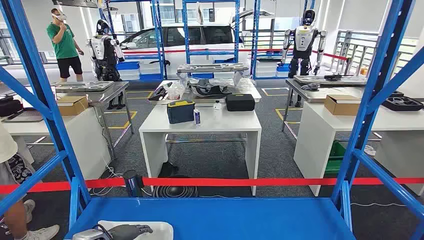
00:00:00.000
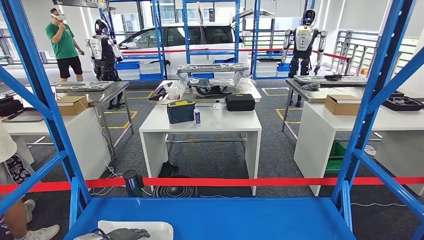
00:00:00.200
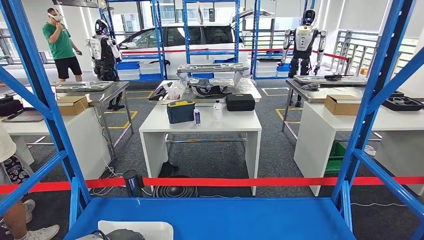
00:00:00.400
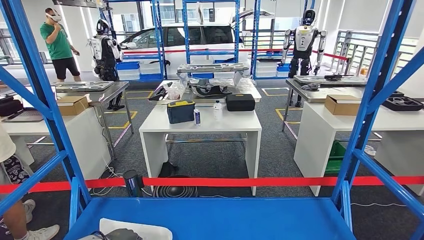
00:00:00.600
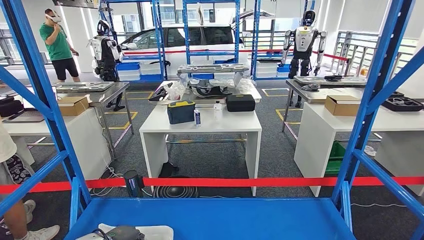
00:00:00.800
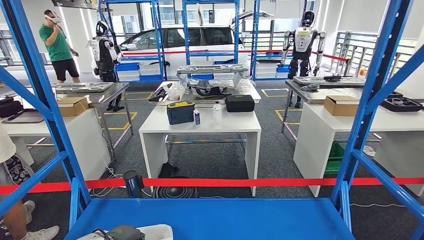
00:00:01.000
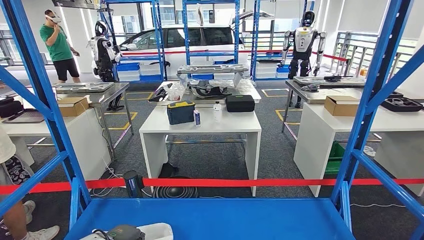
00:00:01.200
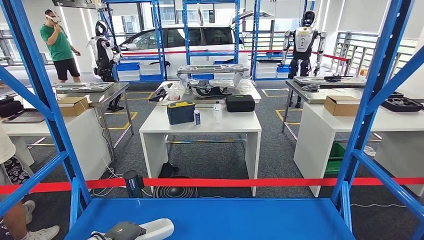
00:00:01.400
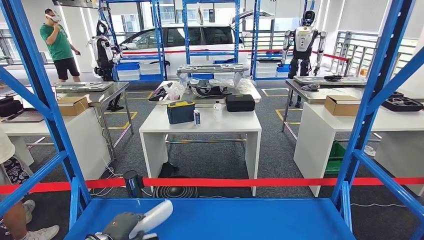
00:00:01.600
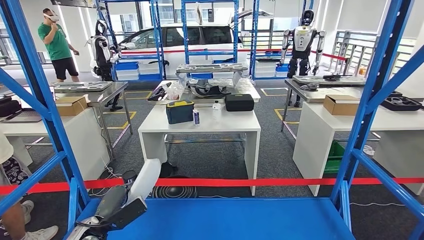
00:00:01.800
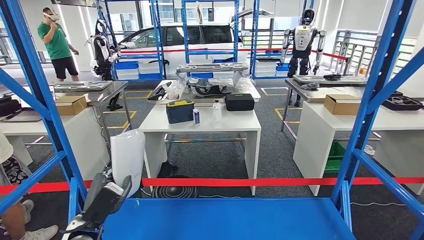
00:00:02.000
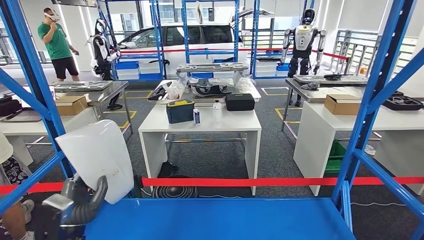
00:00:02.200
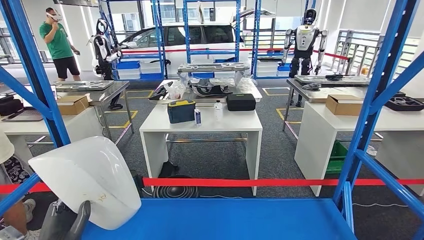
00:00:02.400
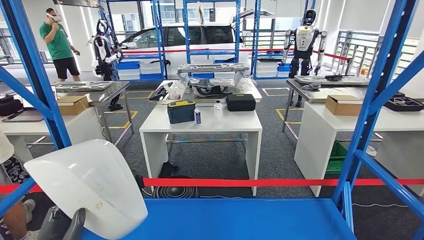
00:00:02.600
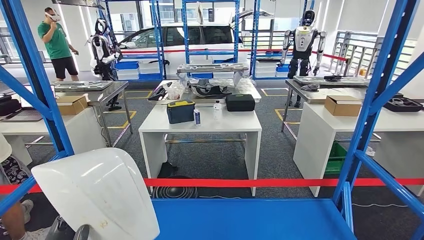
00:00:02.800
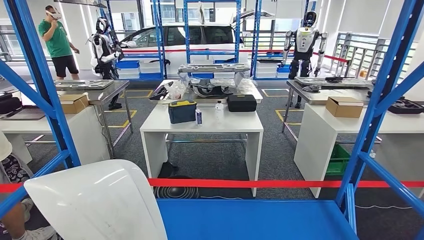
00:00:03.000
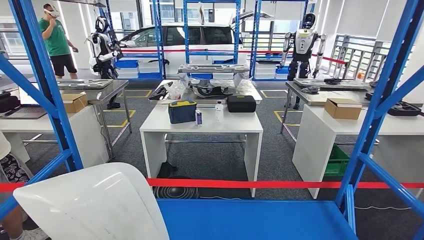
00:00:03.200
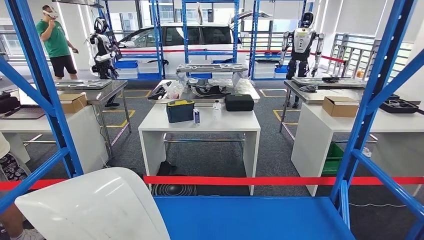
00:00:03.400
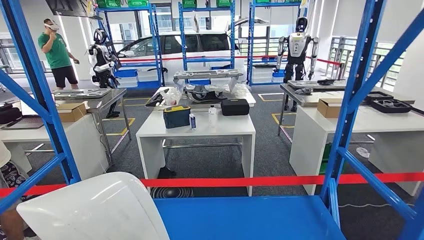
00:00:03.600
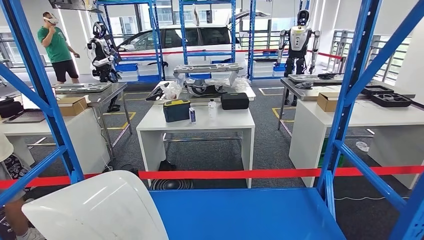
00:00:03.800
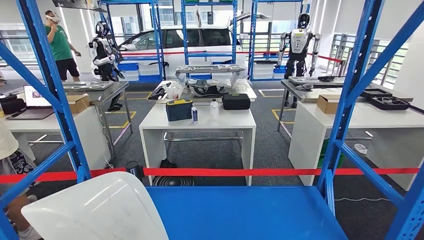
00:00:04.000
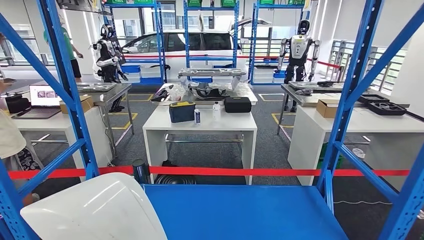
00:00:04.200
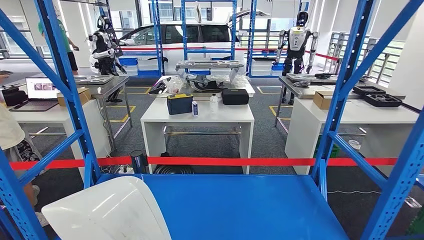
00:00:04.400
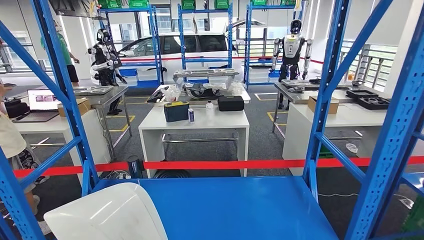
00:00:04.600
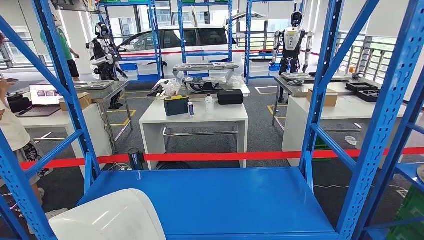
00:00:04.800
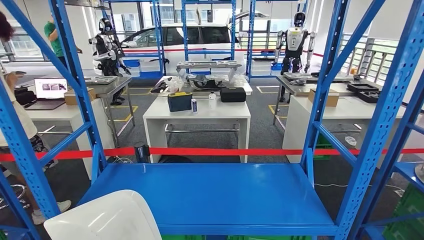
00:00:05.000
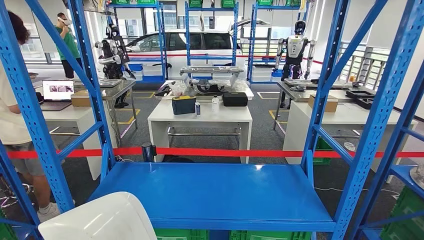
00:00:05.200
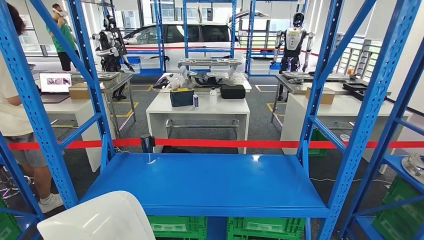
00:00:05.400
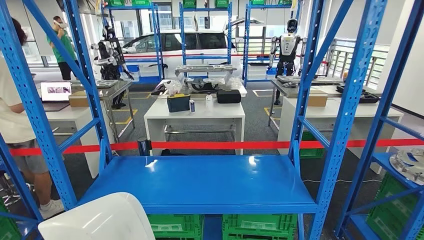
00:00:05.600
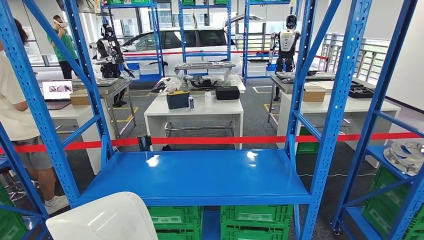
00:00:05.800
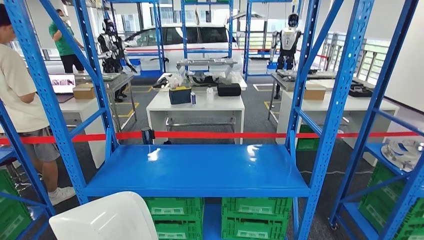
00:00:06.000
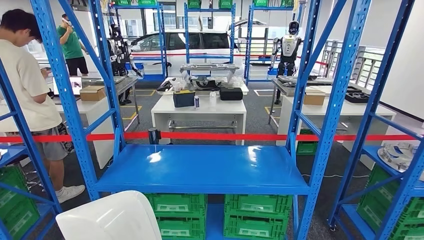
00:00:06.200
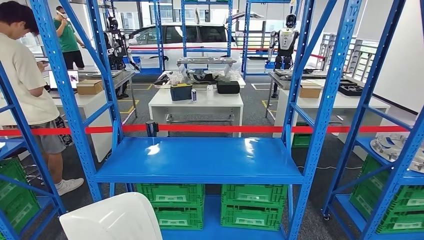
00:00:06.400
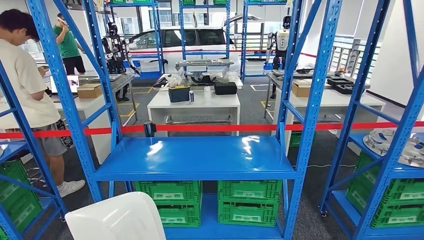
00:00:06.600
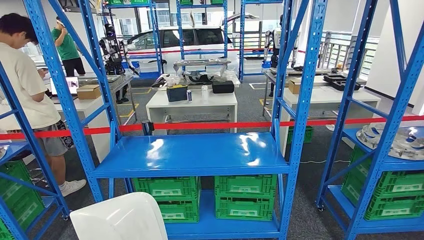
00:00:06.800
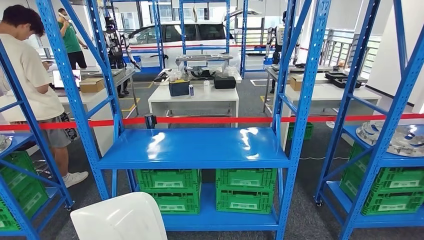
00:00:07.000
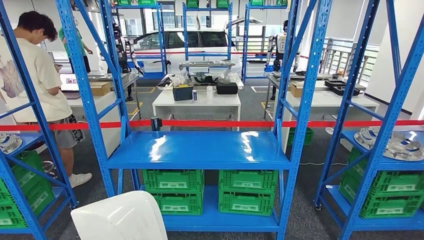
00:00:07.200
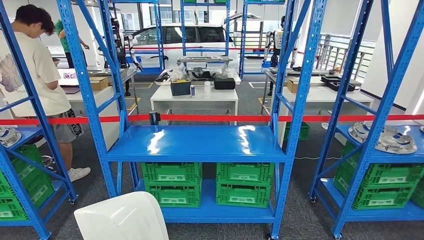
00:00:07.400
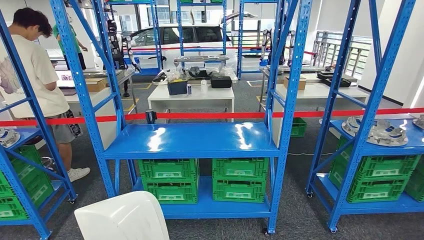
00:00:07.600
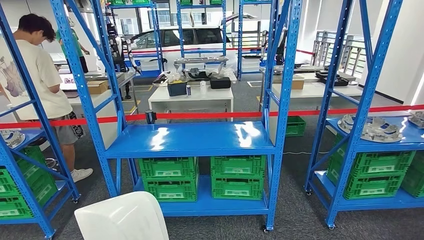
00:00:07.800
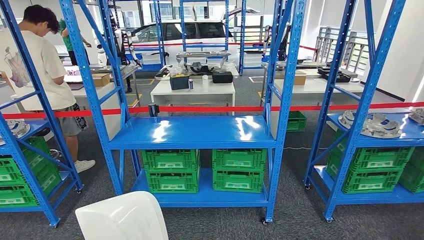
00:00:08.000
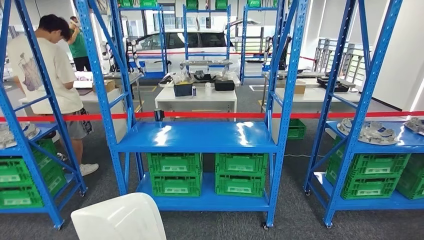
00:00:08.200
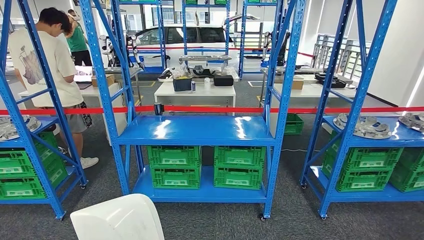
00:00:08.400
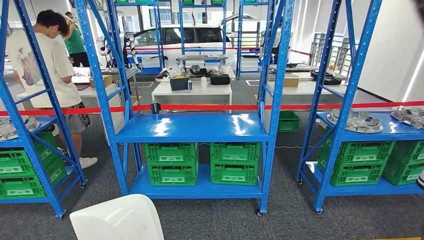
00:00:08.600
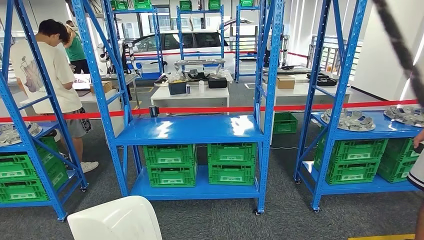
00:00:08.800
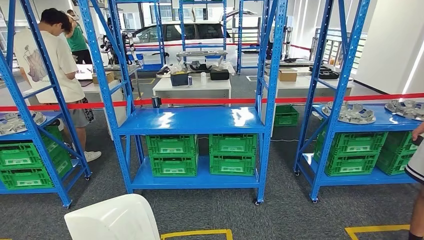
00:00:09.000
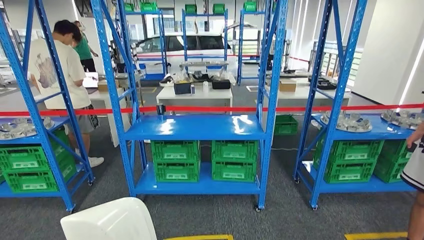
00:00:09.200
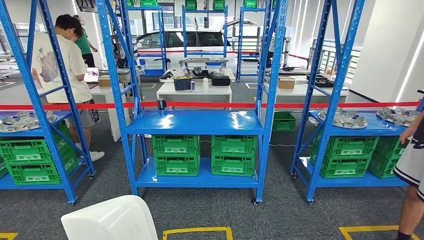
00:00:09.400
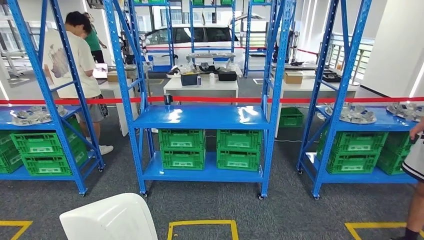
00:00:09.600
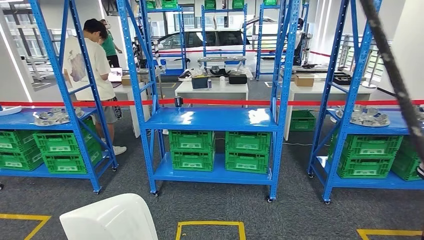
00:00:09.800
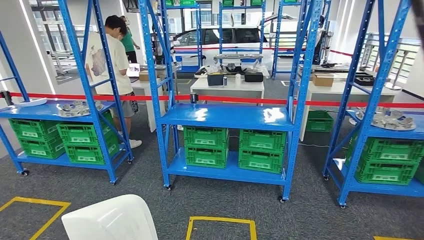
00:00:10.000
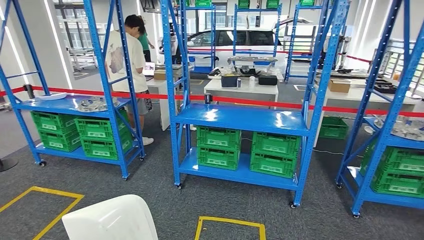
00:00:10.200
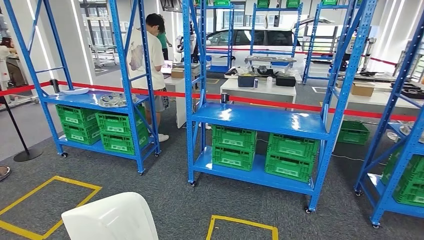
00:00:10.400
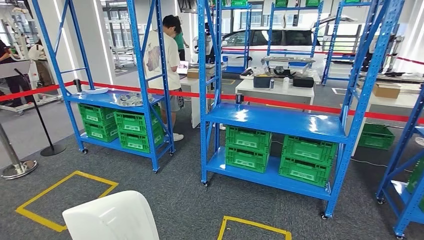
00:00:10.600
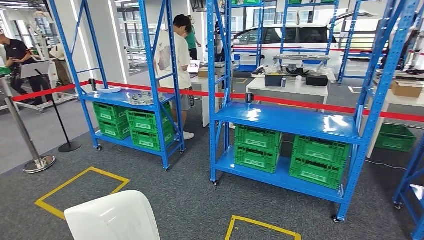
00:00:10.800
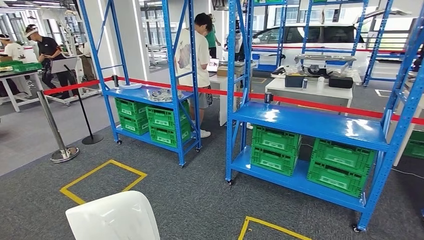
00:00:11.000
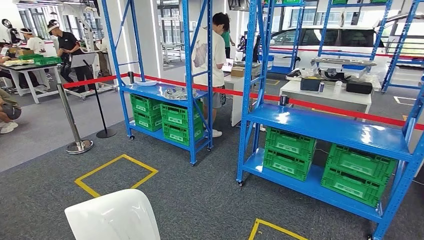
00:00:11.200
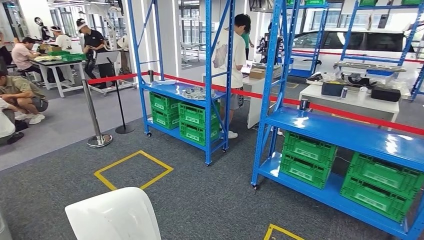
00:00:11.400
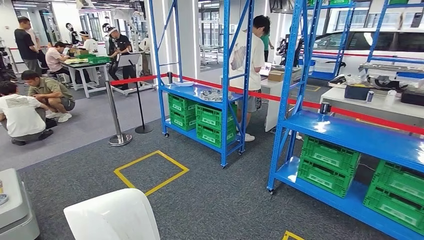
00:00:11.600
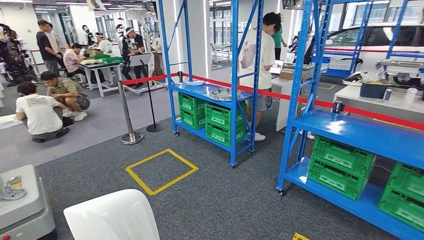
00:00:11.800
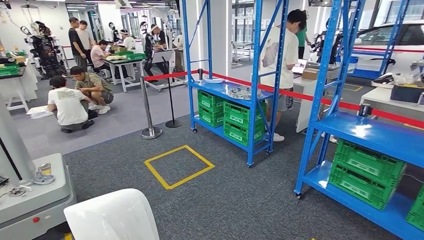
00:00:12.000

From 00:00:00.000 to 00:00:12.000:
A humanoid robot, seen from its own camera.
Step, from 00:00:00.000 to 00:00:02.600: Pick up the small component from the shelf.

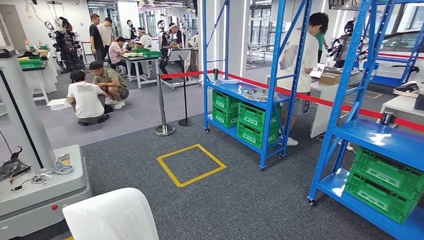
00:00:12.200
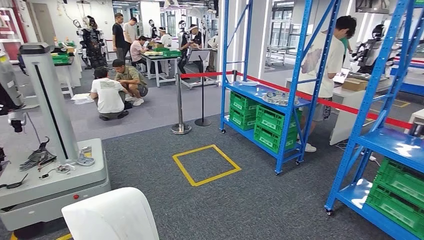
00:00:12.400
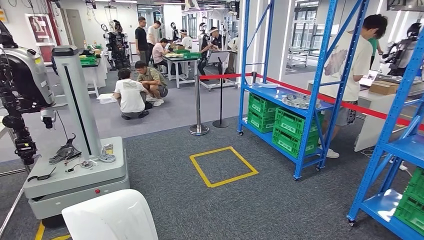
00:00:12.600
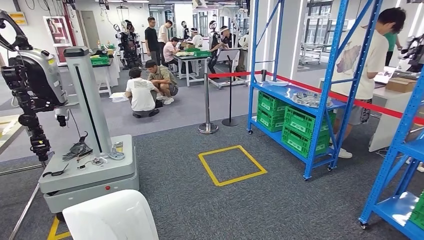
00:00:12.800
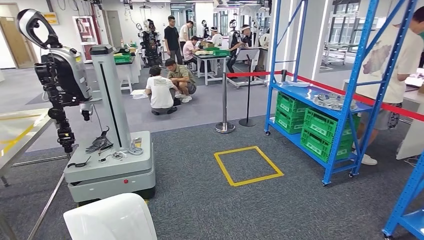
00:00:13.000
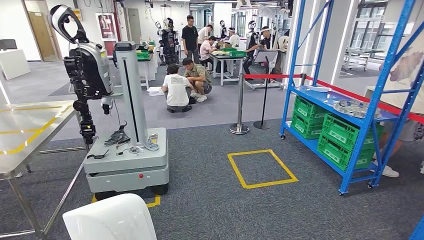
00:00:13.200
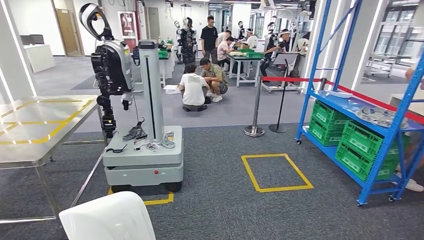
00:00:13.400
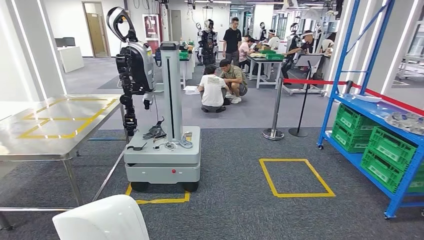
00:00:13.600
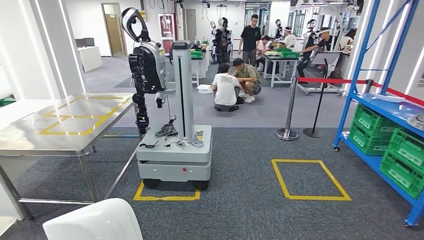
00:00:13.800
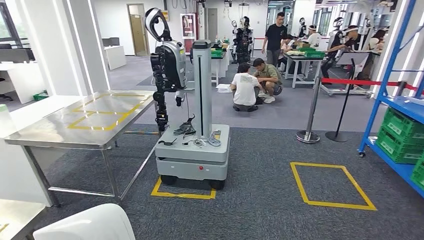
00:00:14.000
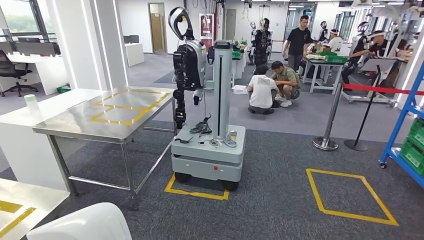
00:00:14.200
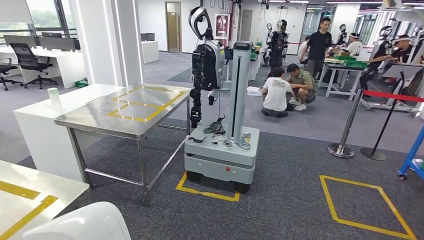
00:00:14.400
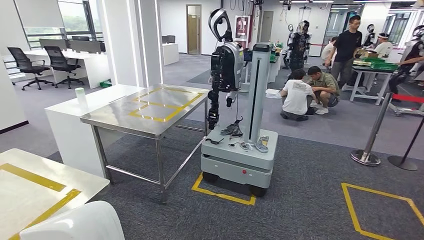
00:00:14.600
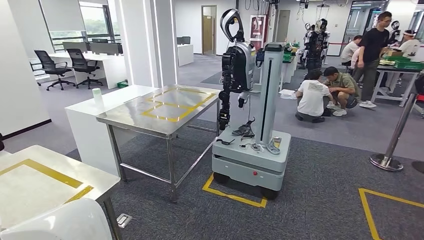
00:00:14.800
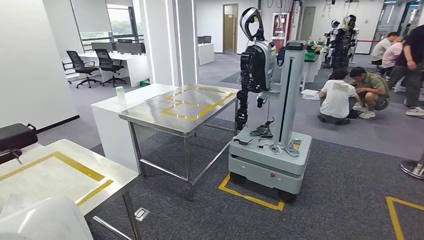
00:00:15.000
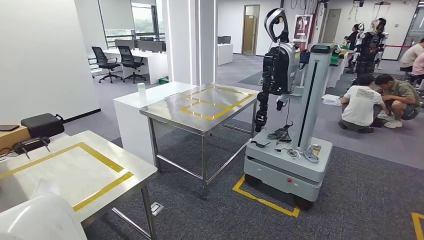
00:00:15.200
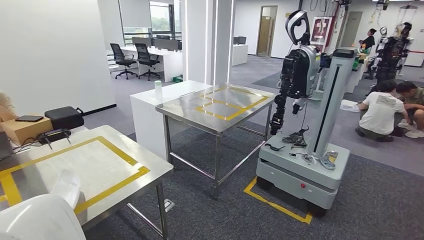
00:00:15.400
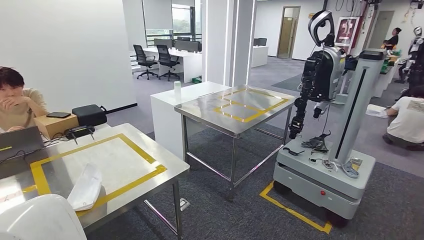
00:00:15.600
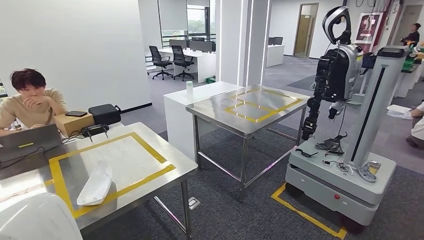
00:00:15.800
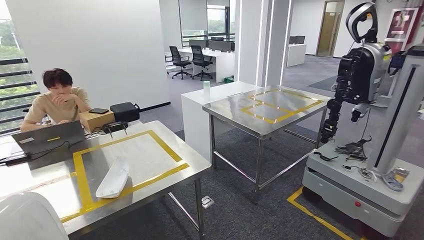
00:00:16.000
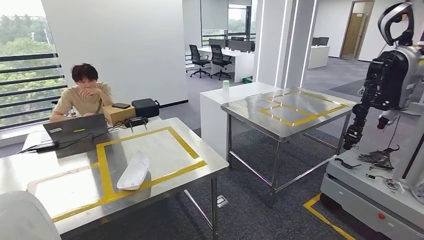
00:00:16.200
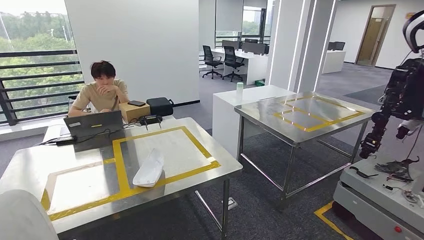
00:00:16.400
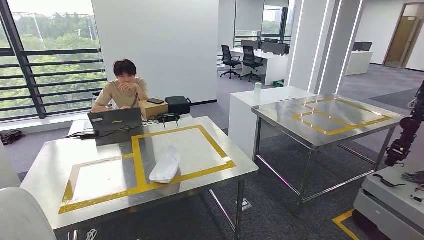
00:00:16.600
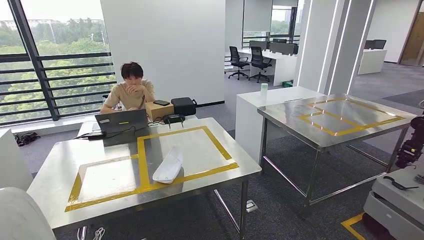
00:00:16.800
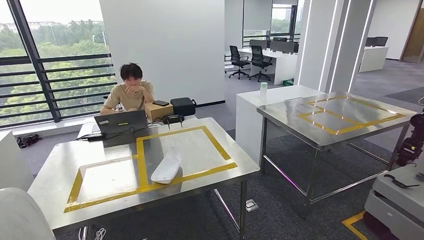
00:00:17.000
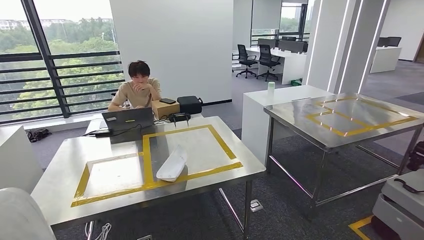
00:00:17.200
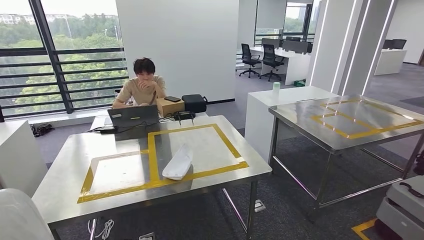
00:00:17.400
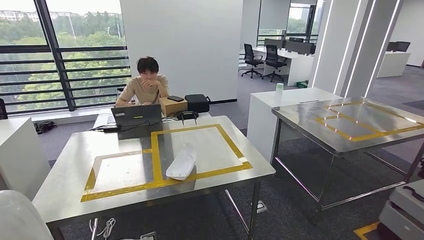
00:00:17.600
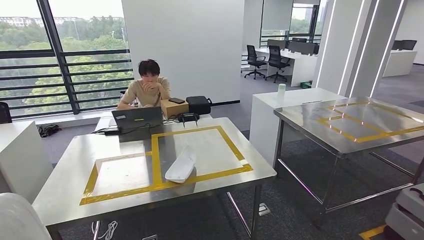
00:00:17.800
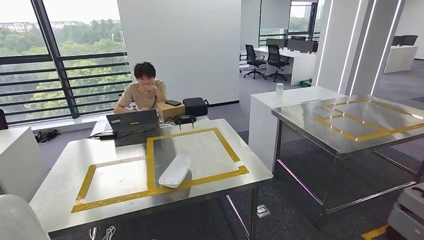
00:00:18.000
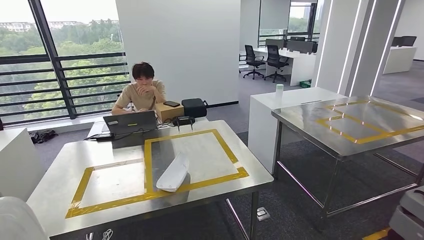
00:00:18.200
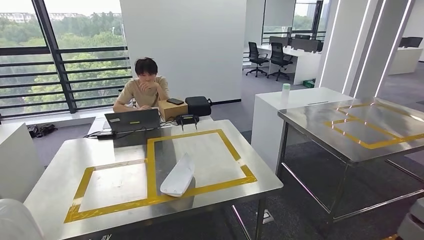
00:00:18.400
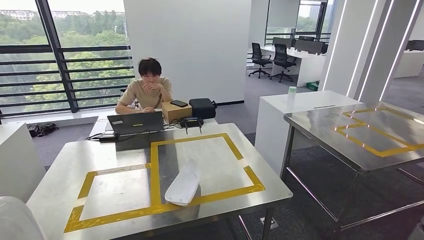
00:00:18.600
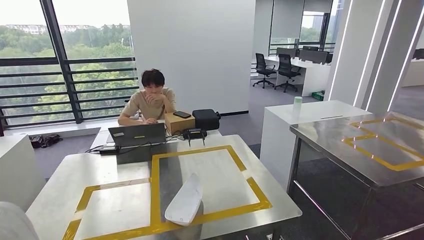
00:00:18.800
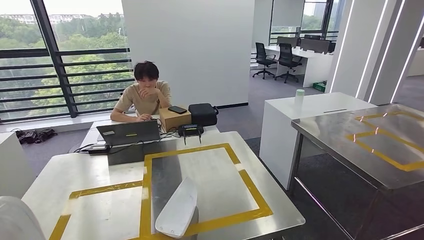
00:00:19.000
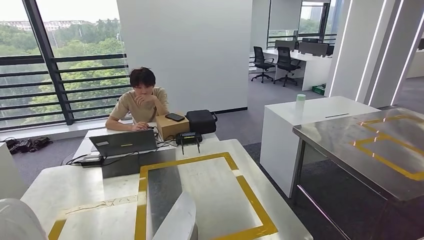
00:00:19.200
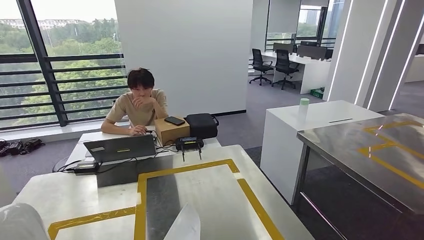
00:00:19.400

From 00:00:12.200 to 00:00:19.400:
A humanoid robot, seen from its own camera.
Step, from 00:00:12.200 to 00:00:16.000: Move the small component to the workbench.
